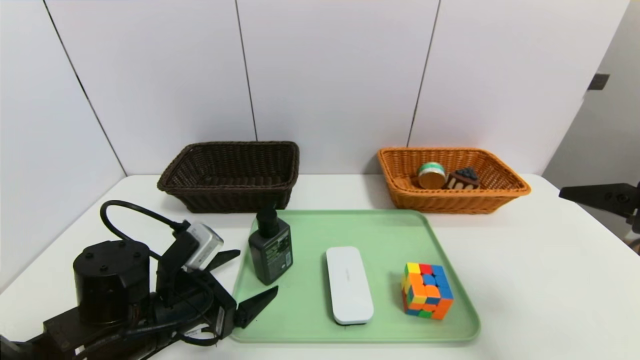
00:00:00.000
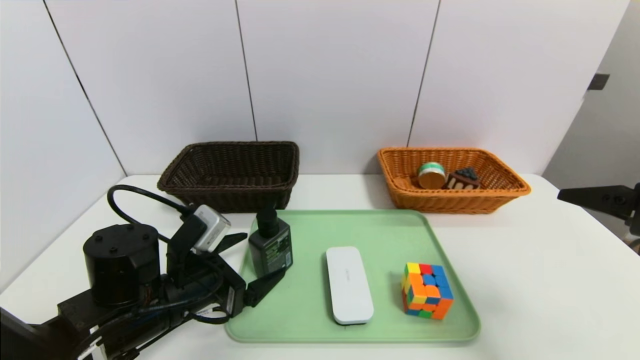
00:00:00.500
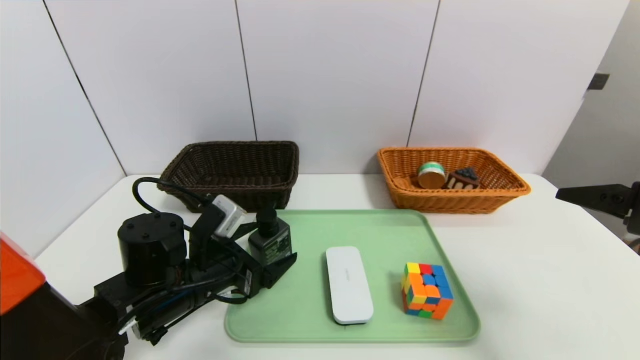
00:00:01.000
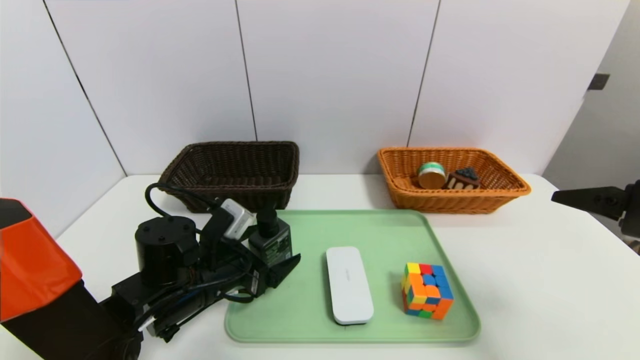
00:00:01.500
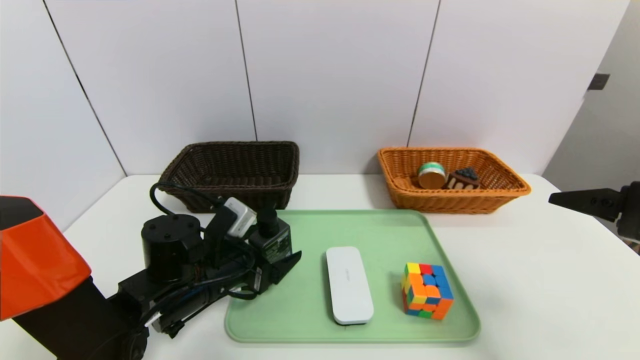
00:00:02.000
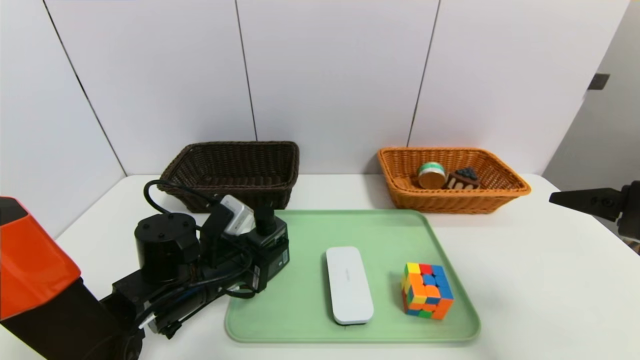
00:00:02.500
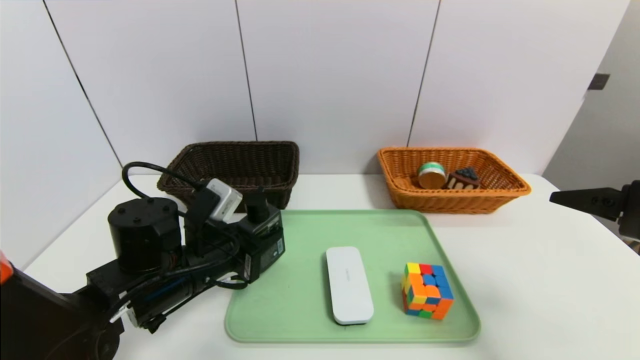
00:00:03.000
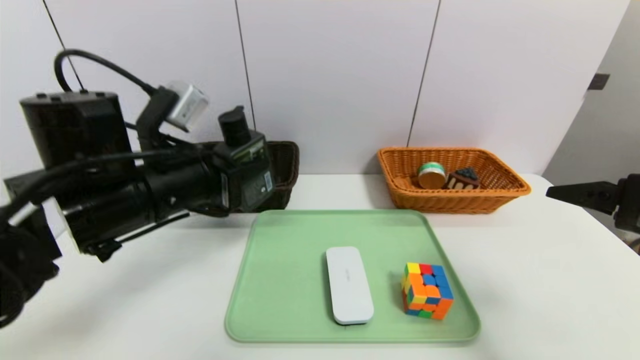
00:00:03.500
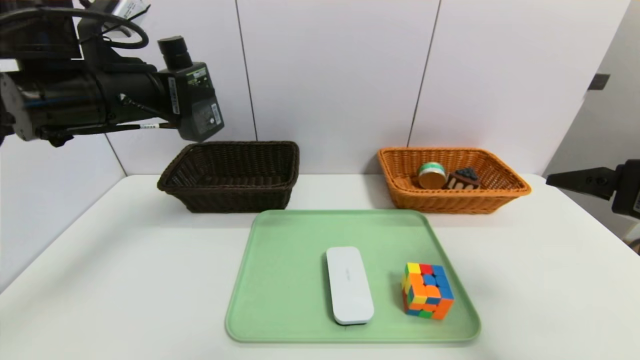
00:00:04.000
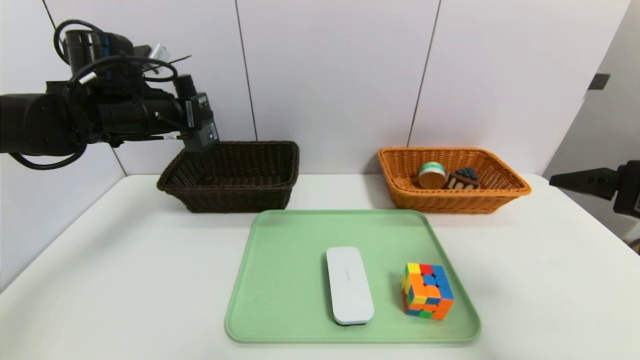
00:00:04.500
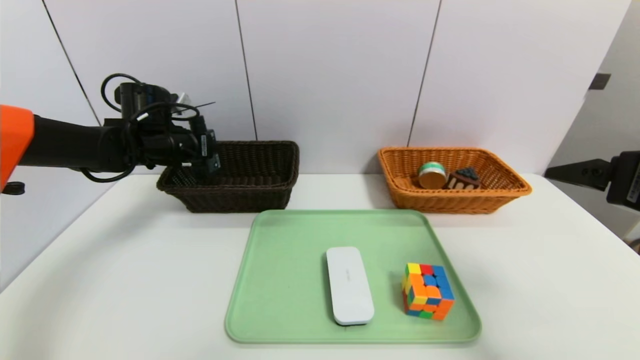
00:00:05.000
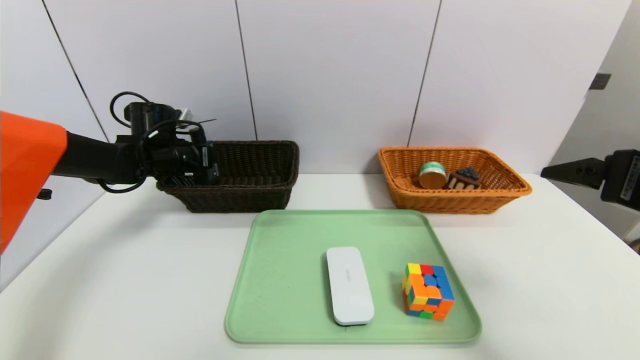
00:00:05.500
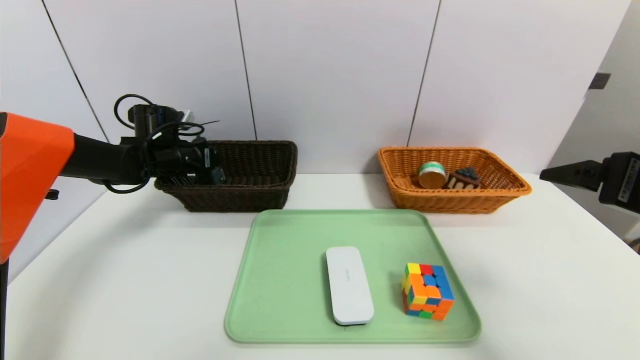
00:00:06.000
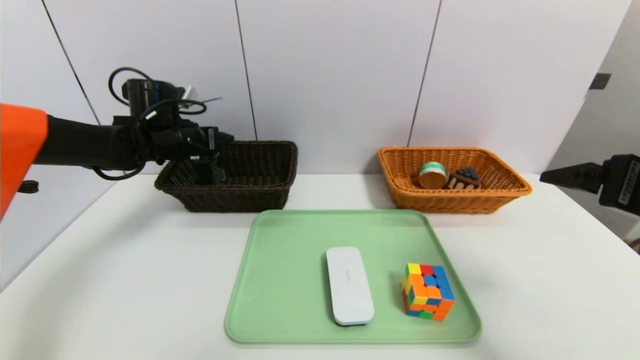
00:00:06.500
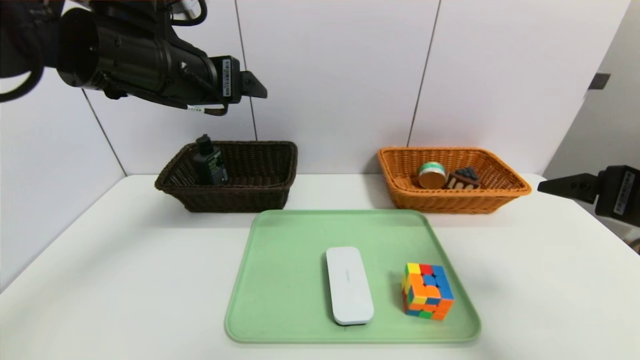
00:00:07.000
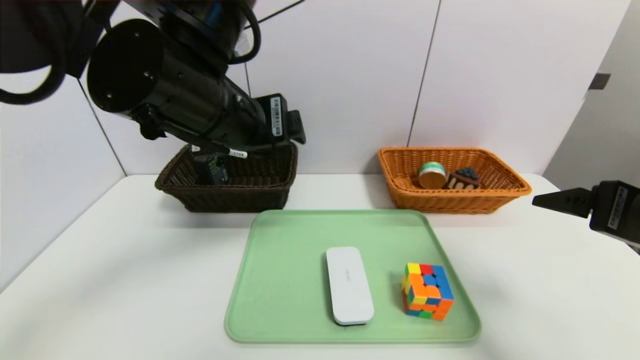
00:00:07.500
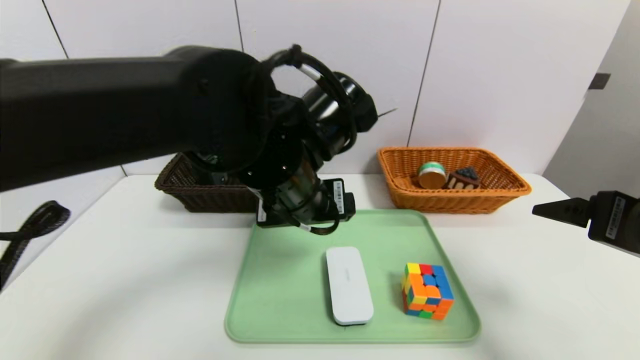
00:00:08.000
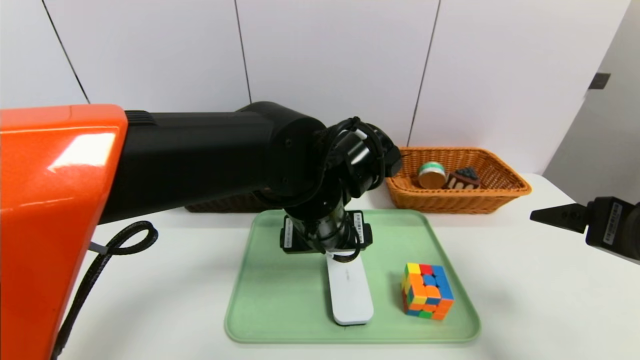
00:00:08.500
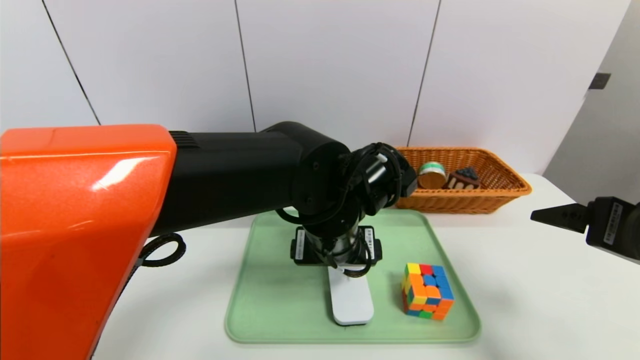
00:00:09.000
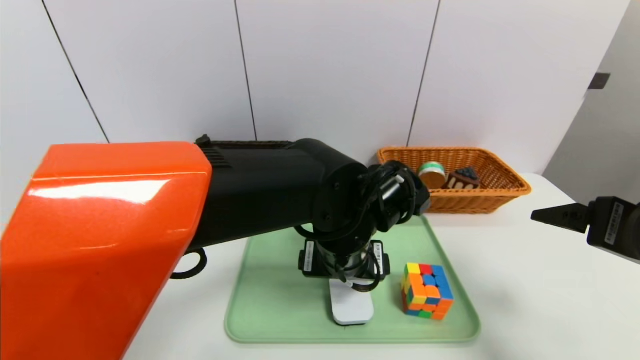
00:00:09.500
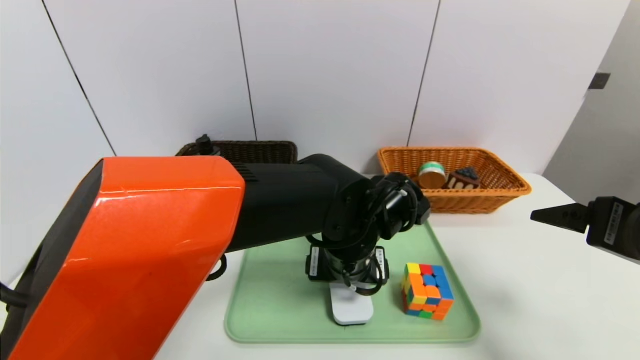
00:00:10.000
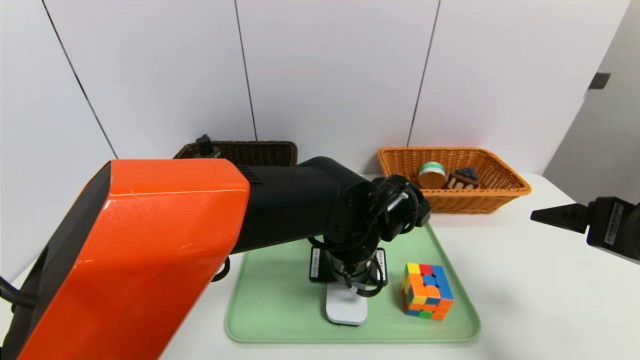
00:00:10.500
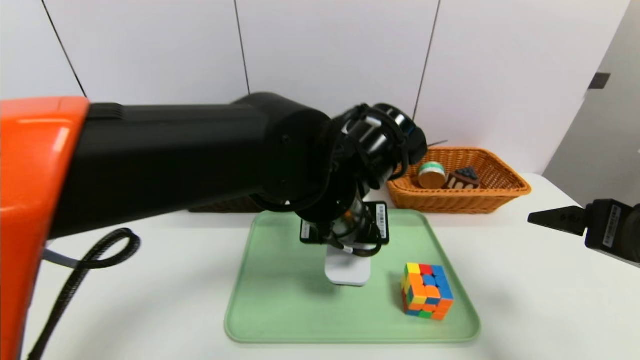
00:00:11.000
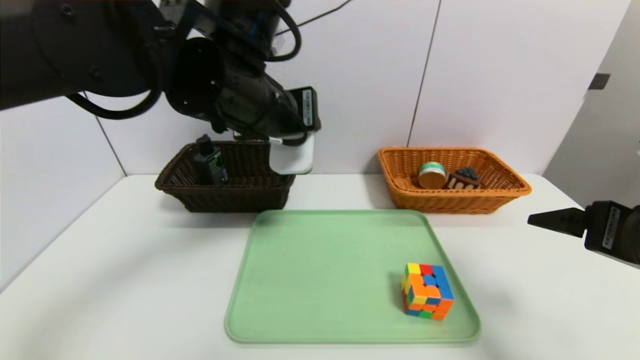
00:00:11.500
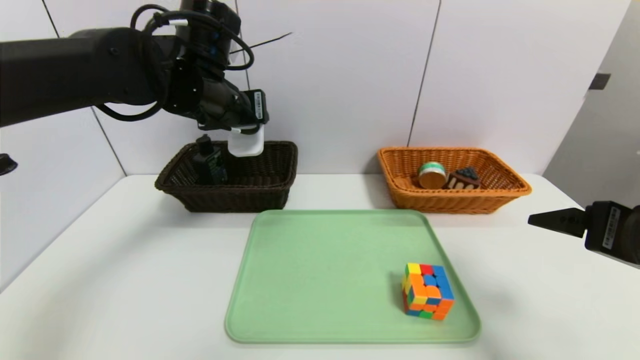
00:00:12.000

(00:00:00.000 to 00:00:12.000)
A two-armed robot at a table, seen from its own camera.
Task of the whole recording: place the food in the right basket with the right gripper, and place the non food items in the left basket with the left gripper.
Step, 00:00:00.000 - 00:00:06.500: Grasp the soft cleanser and put it in the left basket.
00:00:00.000 - 00:00:02.000: The left gripper heads forward, covering roughly 5 cm.
00:00:02.000 - 00:00:04.000: The left gripper travels upward by about 25 cm, and closes up.
00:00:04.000 - 00:00:06.000: The left gripper is displaced forward and downward by approximately 25 cm, and opens.
00:00:06.000 - 00:00:08.000: The left gripper is displaced to the right and backward by about 35 cm, and opens its fingers.
00:00:08.000 - 00:00:10.000: The left gripper shifts about 10 cm downward and to the right.
00:00:10.000 - 00:00:12.000: The left gripper goes some 25 cm to the left, upward and forward, and closes its fingers.

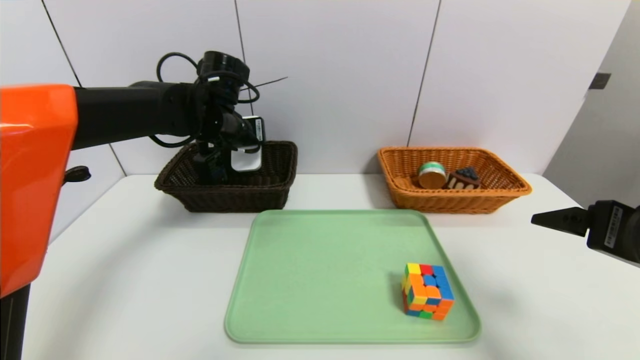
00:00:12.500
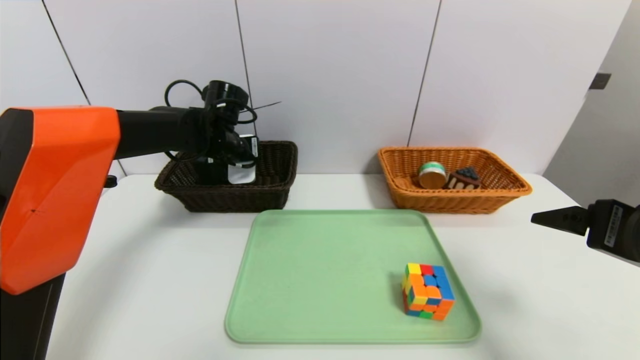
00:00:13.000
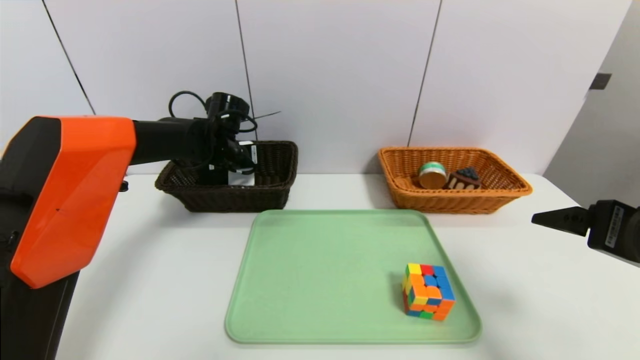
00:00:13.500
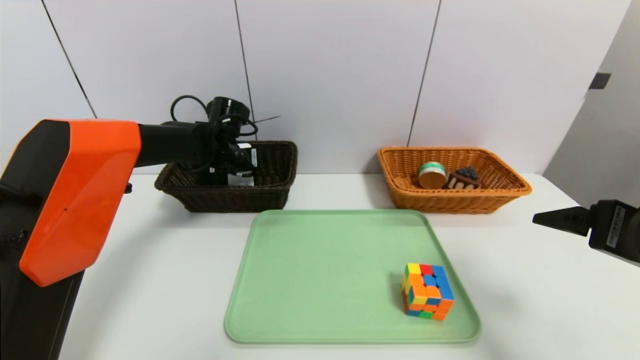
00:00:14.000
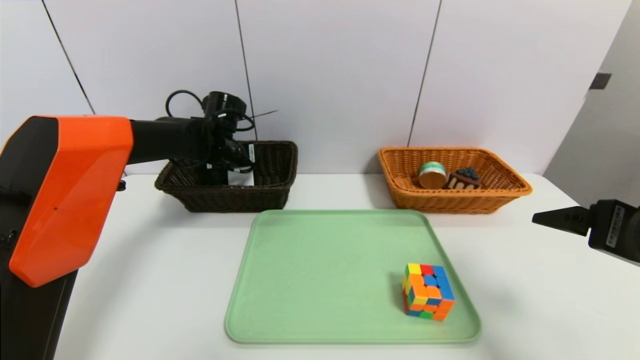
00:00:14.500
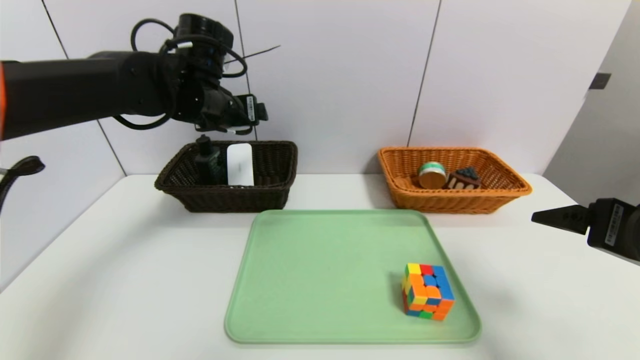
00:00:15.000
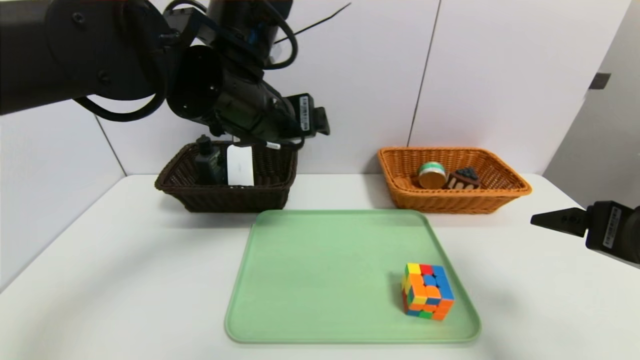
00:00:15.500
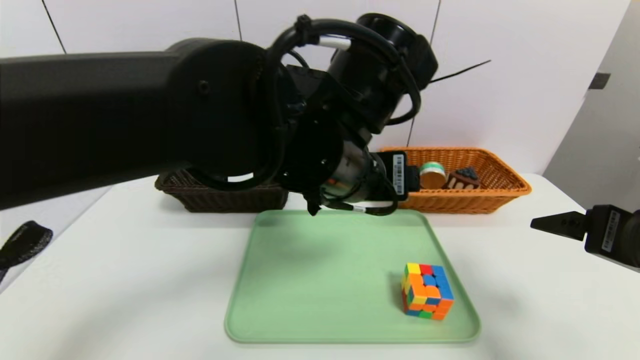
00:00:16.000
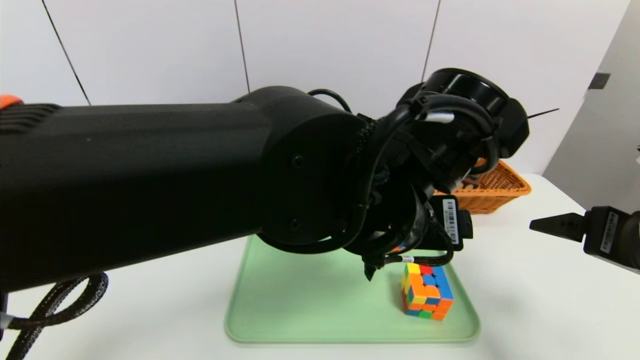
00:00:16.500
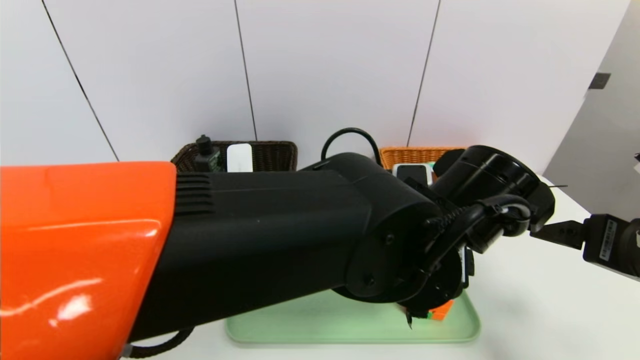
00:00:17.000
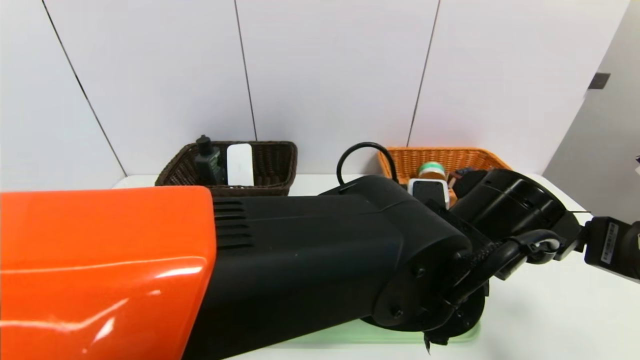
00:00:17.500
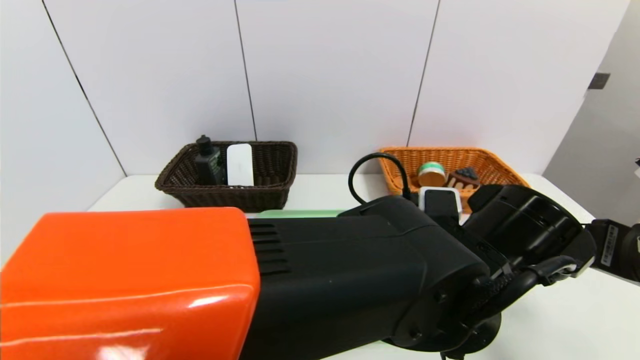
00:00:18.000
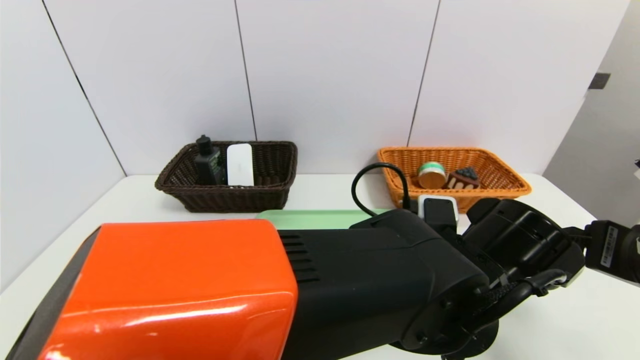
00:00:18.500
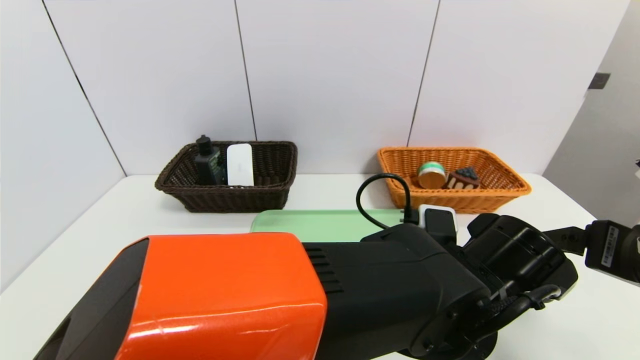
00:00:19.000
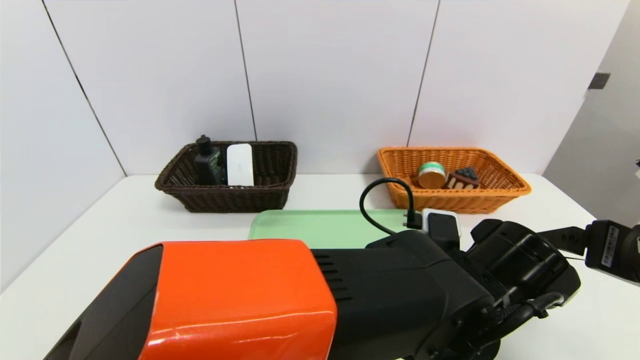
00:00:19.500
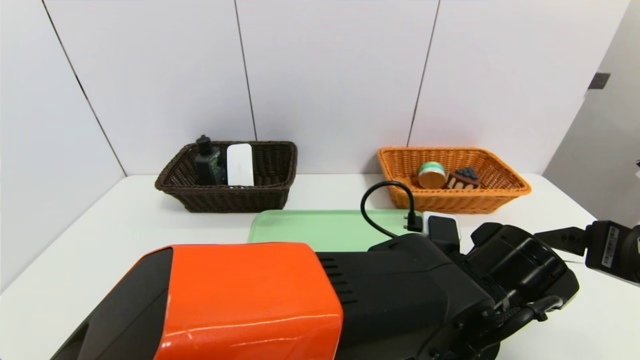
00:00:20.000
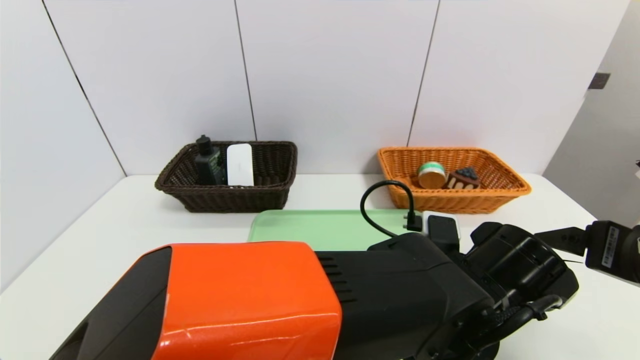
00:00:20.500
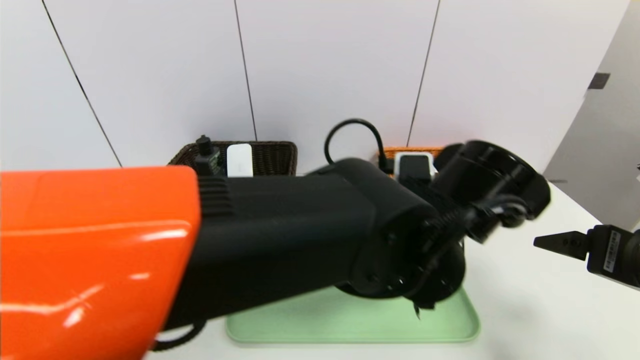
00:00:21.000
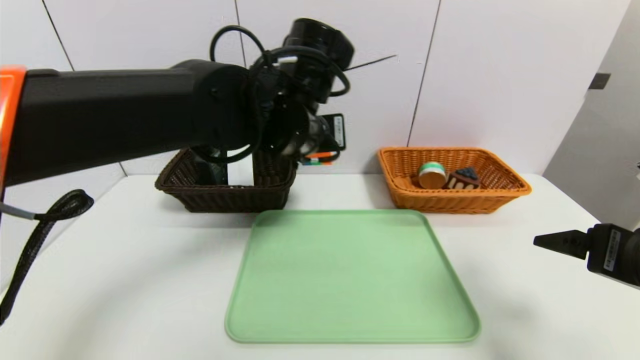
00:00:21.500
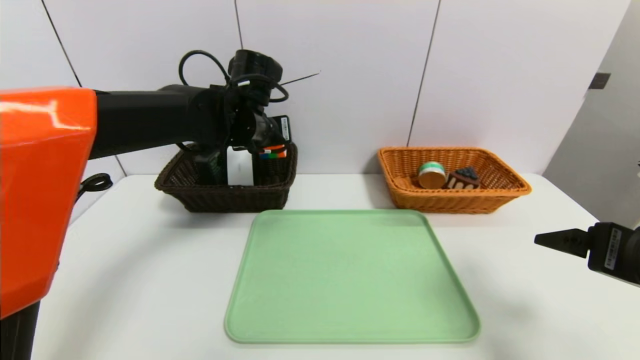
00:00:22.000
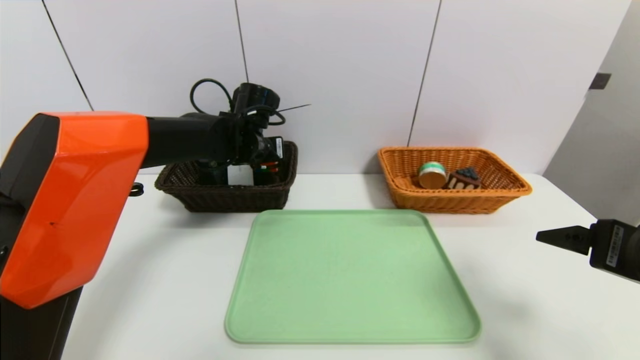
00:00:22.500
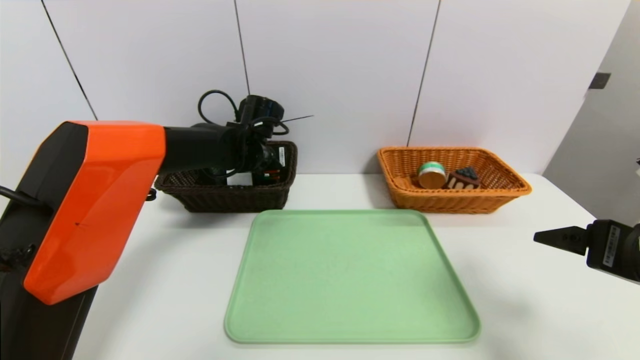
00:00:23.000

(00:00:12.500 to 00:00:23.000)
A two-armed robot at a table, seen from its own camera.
Task of the whole recording: place the food in the right basket with the right gripper, and place the non food items in the left basket with the left gripper.
Step, 00:00:12.500 - 00:00:14.500: Grasp the white eraser and put it in the left basket.
00:00:12.500 - 00:00:14.500: The left gripper goes about 5 cm downward, and opens its fingers.
00:00:14.500 - 00:00:16.500: The left gripper goes some 35 cm backward and to the right.
00:00:16.500 - 00:00:19.000: The left gripper travels downward and to the right by roughly 10 cm.
00:00:19.000 - 00:00:21.000: The left gripper is displaced upward by roughly 5 cm, and closes.
00:00:21.000 - 00:00:23.000: The left gripper moves forward and to the left, roughly 30 cm.
